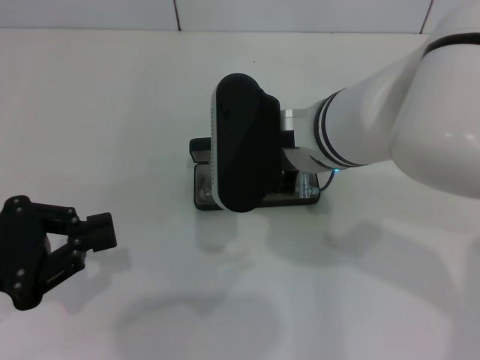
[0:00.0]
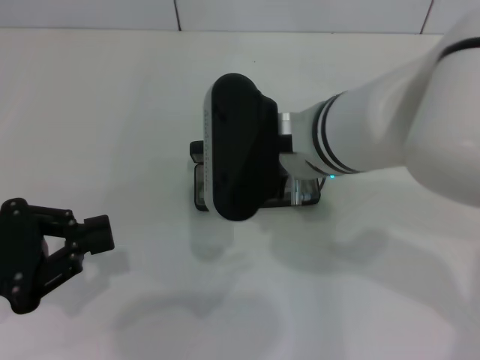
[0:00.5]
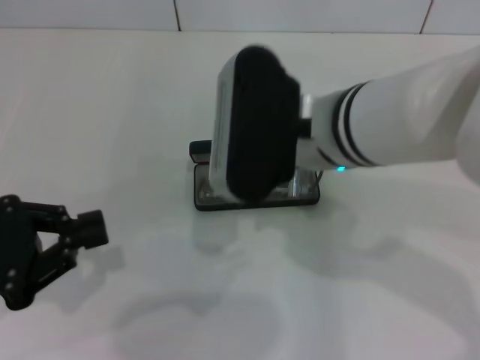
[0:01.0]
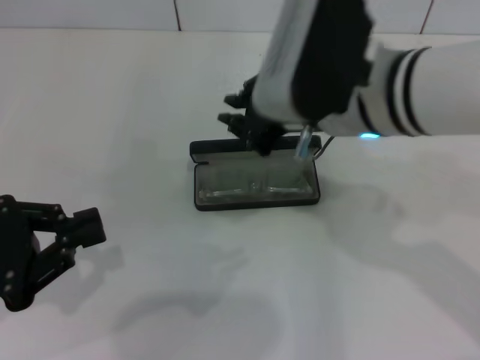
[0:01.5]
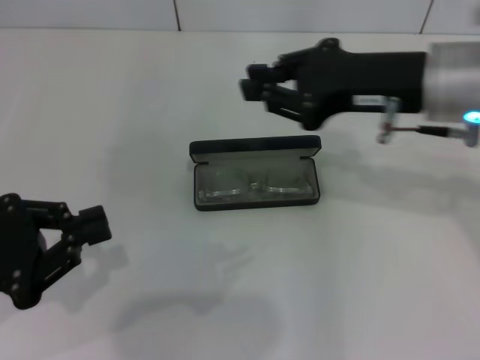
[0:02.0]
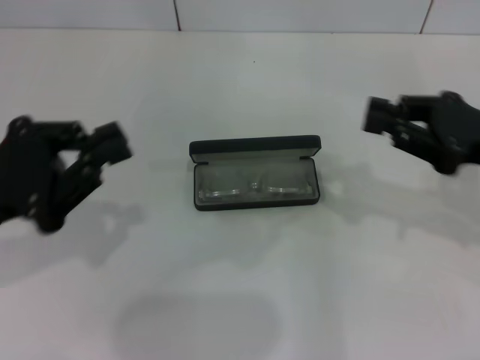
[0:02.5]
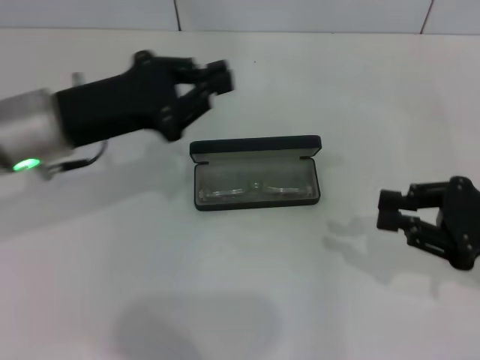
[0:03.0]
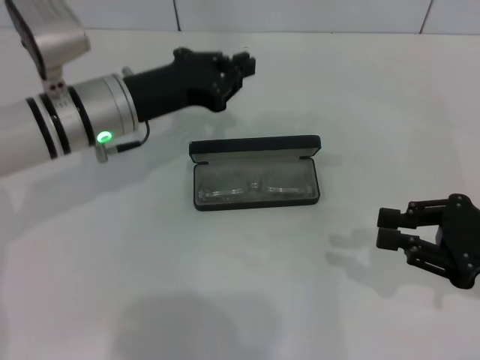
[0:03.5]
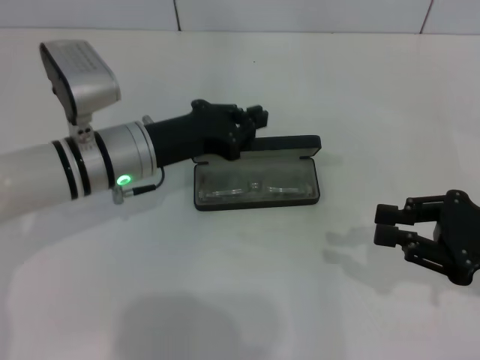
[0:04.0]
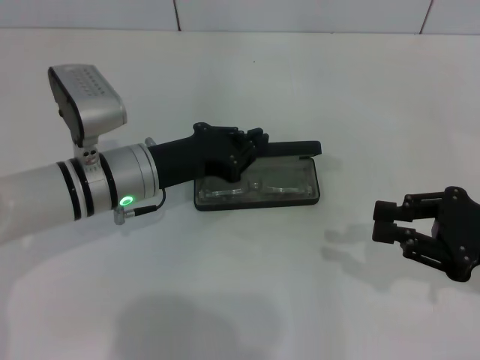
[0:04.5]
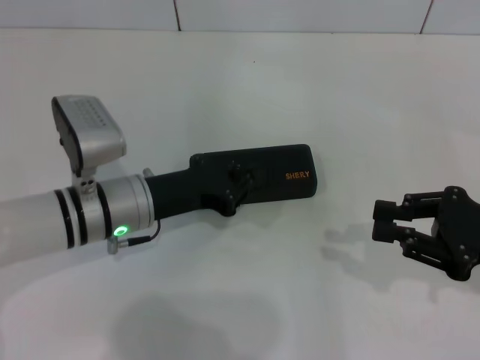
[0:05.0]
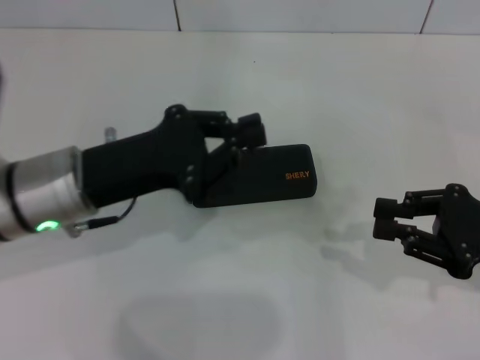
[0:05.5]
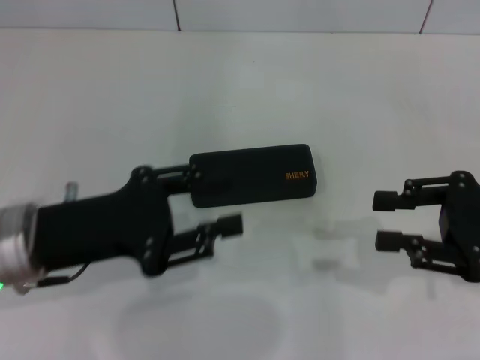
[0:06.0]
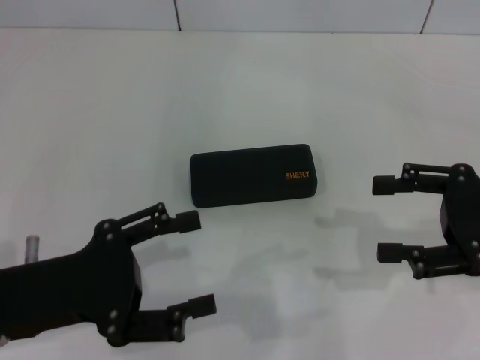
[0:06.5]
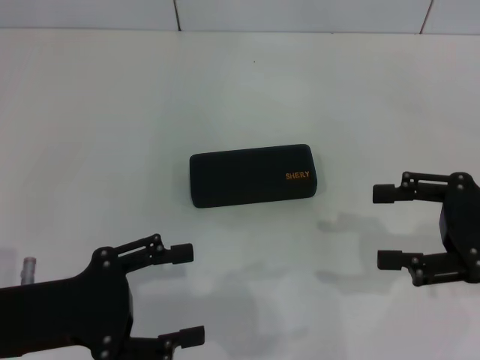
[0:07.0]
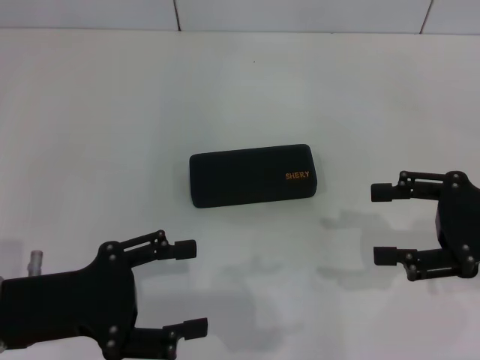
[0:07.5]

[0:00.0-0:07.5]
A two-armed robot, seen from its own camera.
Step, 0:01.0 to 0:05.0: Close the glasses case with your left hand.
0:00.0 to 0:02.0: The right gripper heads to the right, covering about 15 cm.
0:02.0 to 0:04.0: The right gripper travels to the right, downward and backward by roughly 20 cm; the left gripper heads forward and to the right, covering roughly 20 cm.
0:04.0 to 0:05.5: The left gripper is displaced backward by approximately 5 cm.
0:05.5 to 0:07.5: The left gripper goes roughly 10 cm backward and to the left, and opens. The right gripper opens its fingers.

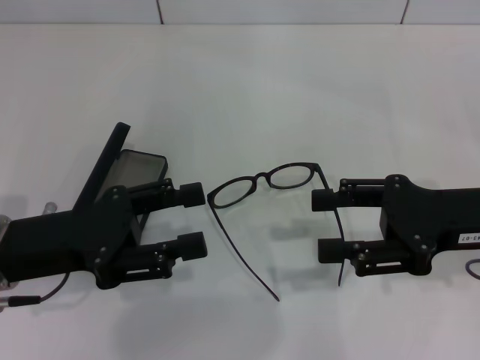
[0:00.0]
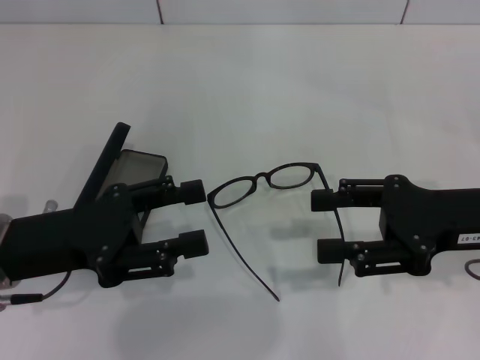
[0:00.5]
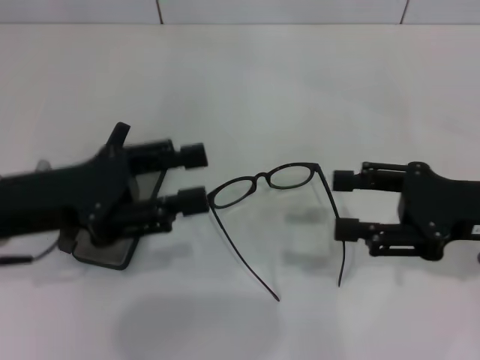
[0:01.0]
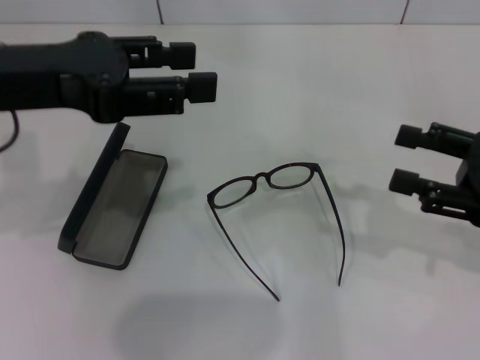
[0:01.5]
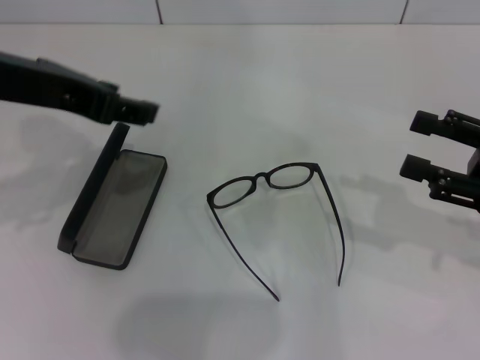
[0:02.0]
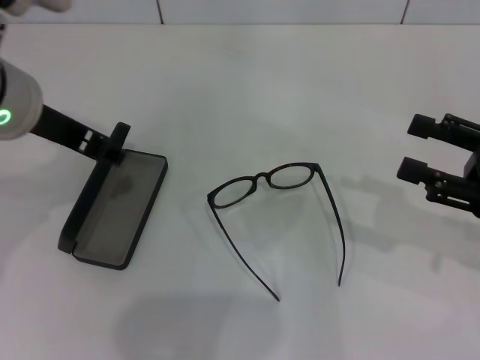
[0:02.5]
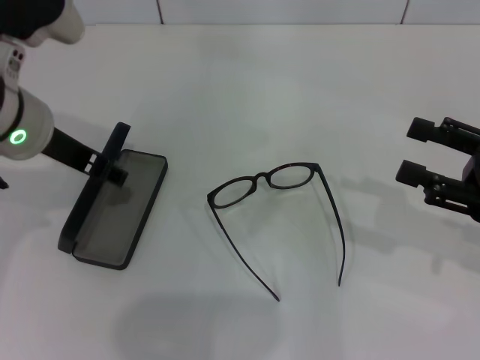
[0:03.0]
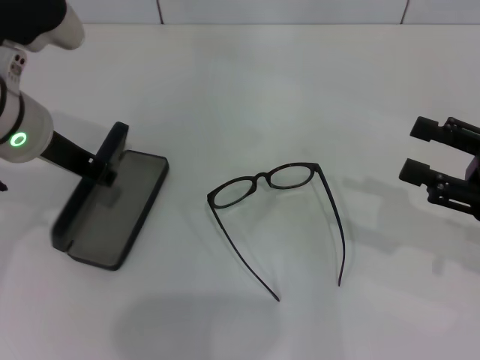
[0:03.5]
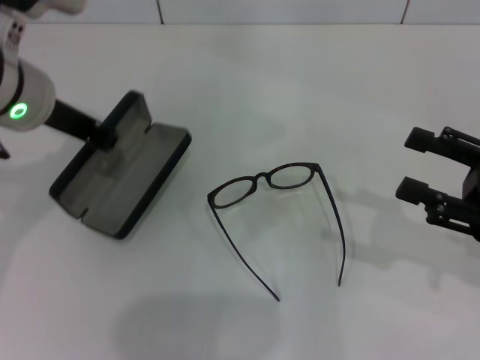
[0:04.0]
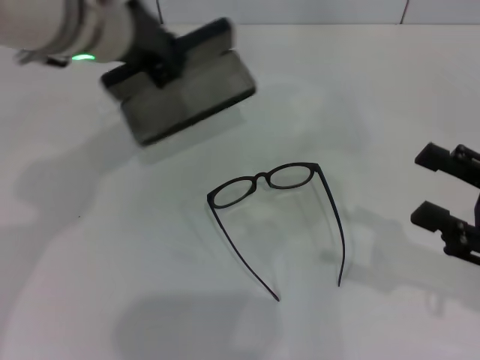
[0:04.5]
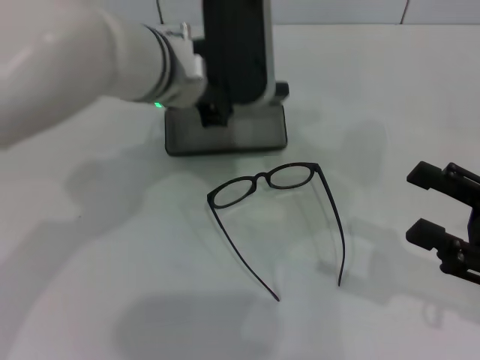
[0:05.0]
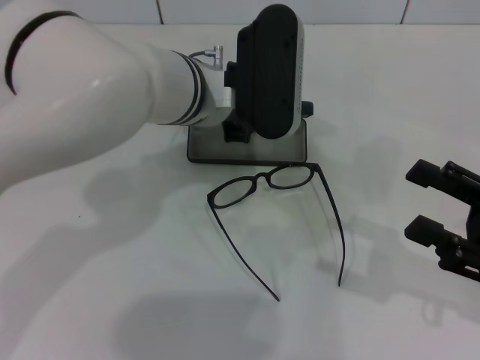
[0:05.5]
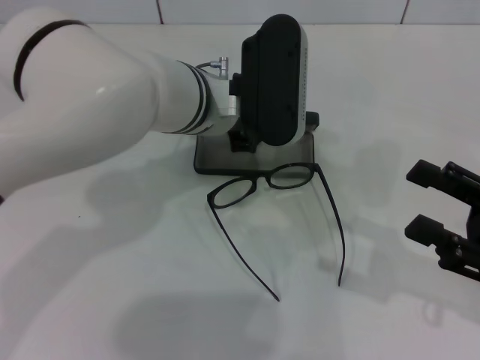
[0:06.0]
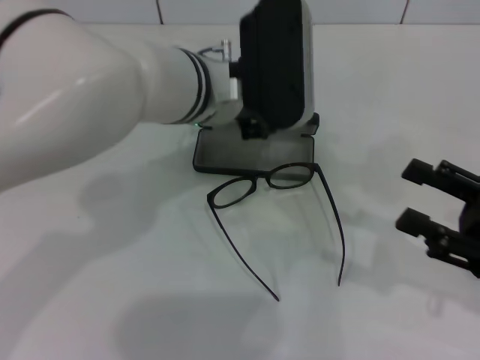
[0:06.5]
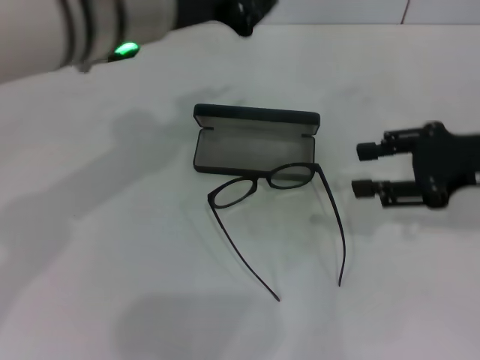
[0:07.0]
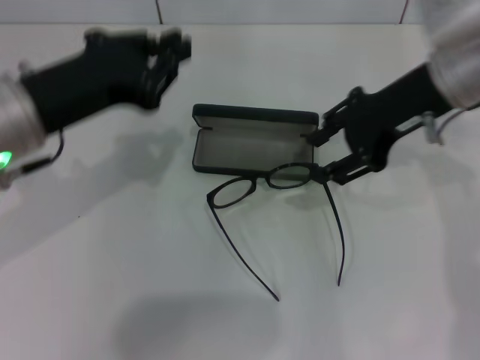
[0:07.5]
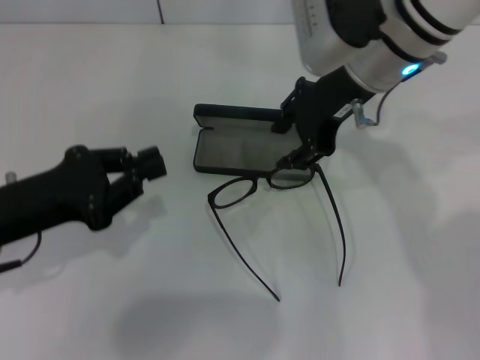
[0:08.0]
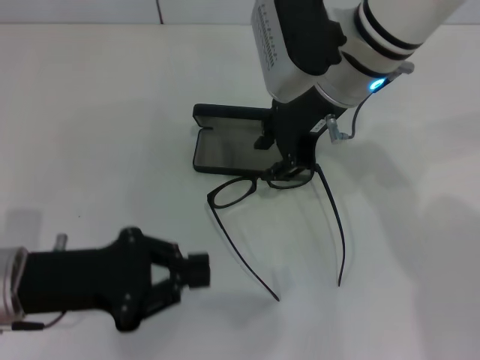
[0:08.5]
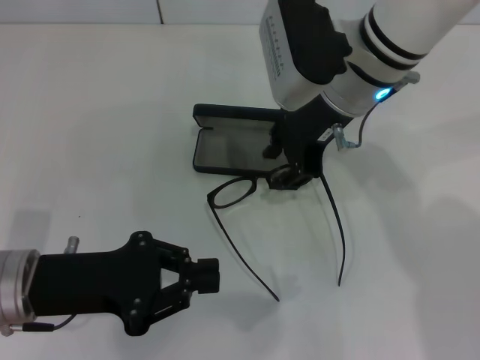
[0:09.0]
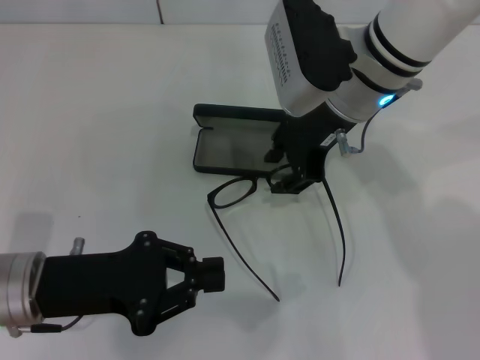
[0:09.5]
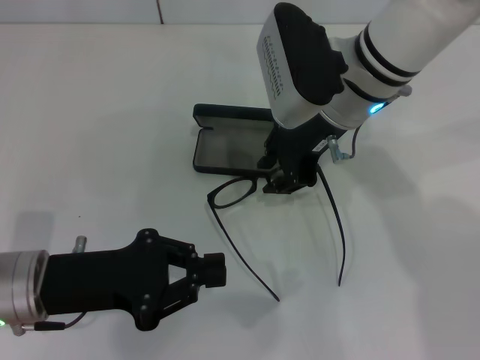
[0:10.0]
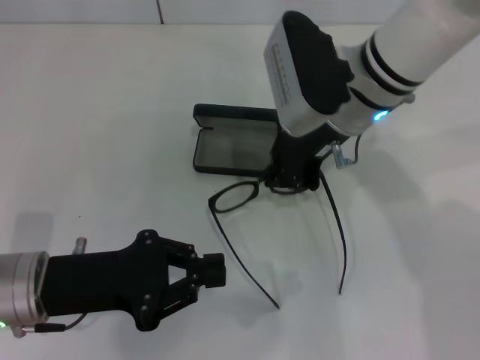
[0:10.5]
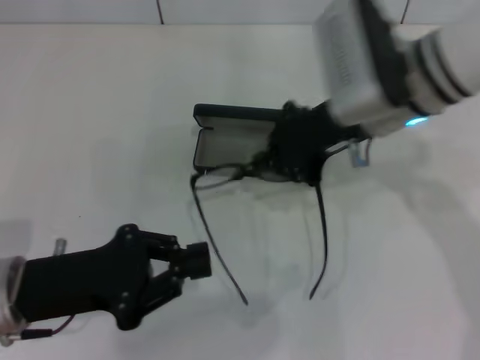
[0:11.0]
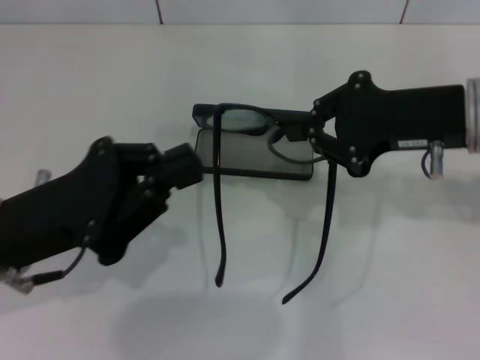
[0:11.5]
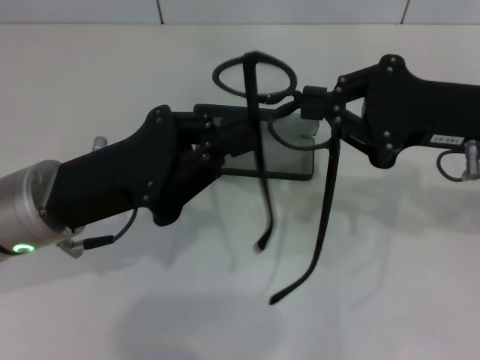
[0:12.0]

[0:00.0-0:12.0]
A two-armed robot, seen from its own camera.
Step, 0:00.0 to 0:03.5: Grab the glasses case with your left hand.
Step, 0:04.0 to 0:06.0: Place the glasses case in the center of the table with your left hand.
Step, 0:06.5 to 0:10.5: Grab the eyeglass frame with your right hand.
0:00.0 to 0:02.0: The left gripper goes roughly 15 cm upward. The right gripper heads to the right, covering roughly 5 cm.
0:02.0 to 0:04.0: The left gripper moves downward, approximately 5 cm, and closes up.
0:04.0 to 0:06.0: The left gripper heads to the right and downward, covering about 15 cm.
0:06.0 to 0:08.0: The left gripper goes some 25 cm to the left and backward. Meanwhile the right gripper heads to the left, forward and upward, covering approximately 30 cm.
0:08.0 to 0:10.0: The left gripper moves some 5 cm.
0:10.0 to 0:12.0: The left gripper ends up some 5 cm from where it was, while the right gripper heads to the right and backward, covering about 15 cm, and closes.

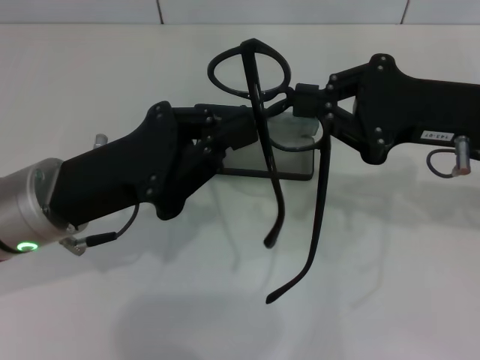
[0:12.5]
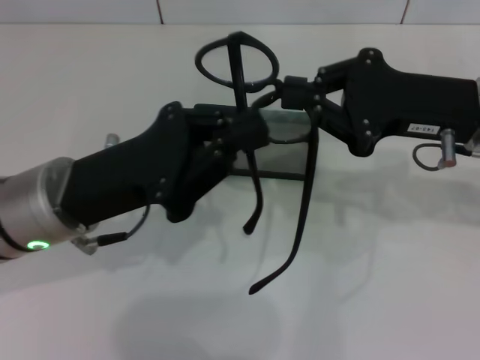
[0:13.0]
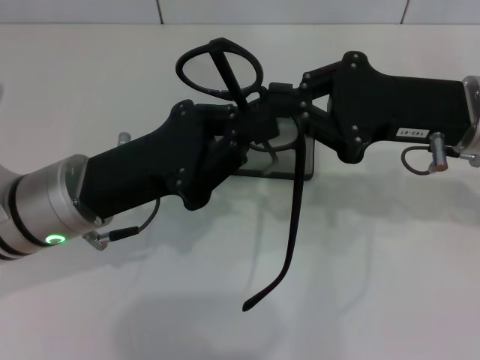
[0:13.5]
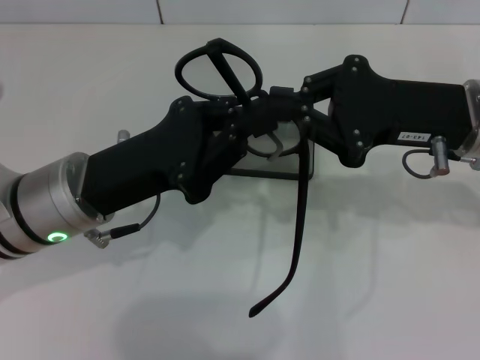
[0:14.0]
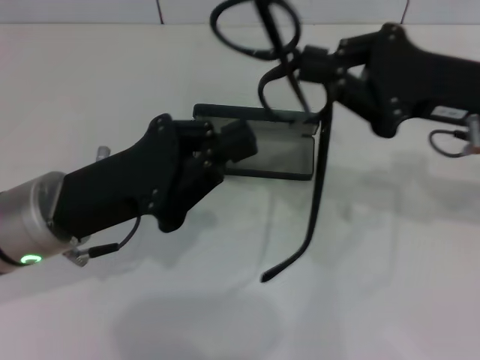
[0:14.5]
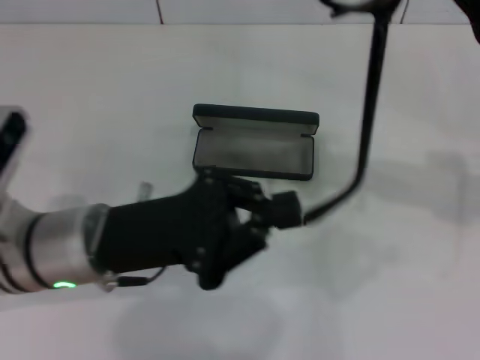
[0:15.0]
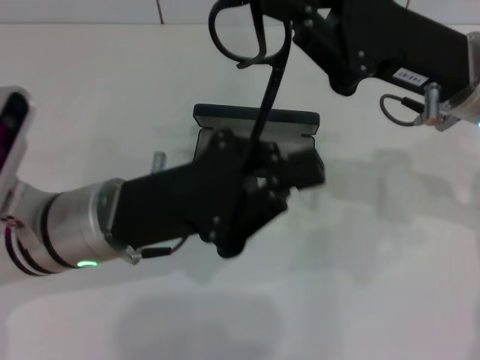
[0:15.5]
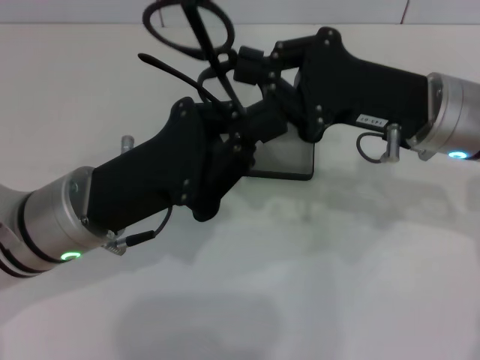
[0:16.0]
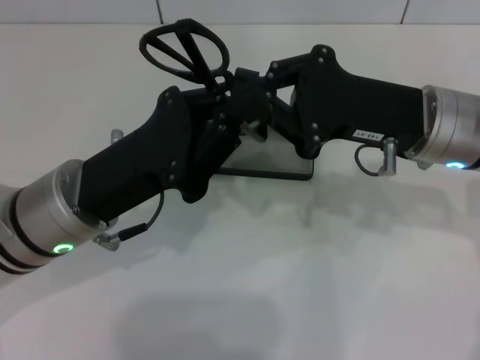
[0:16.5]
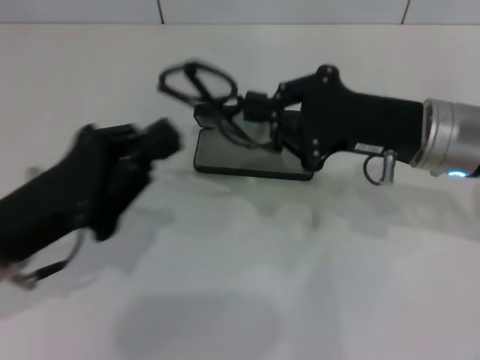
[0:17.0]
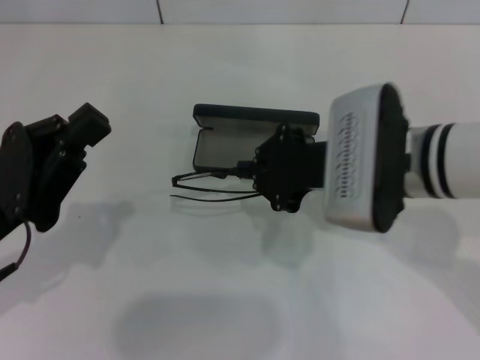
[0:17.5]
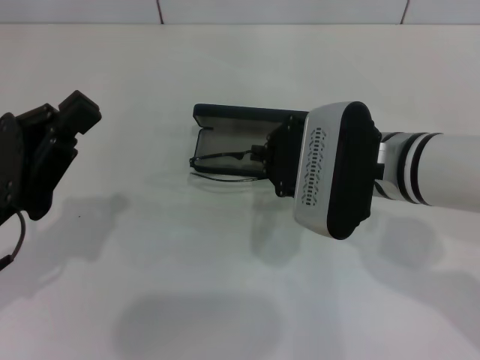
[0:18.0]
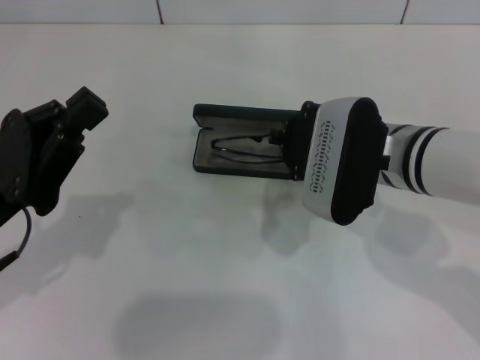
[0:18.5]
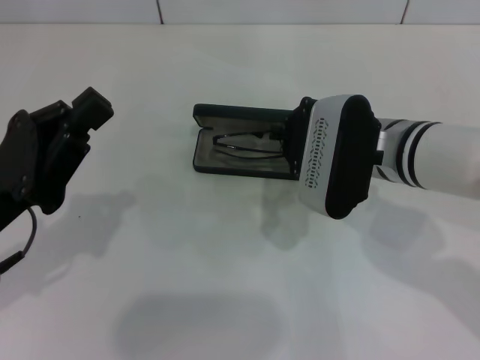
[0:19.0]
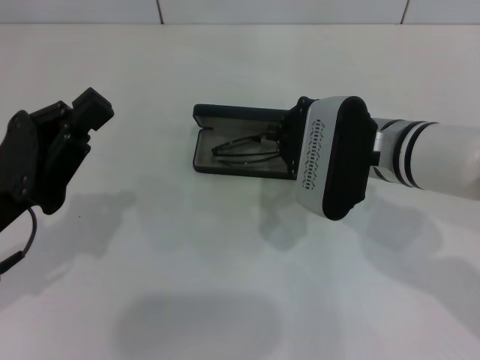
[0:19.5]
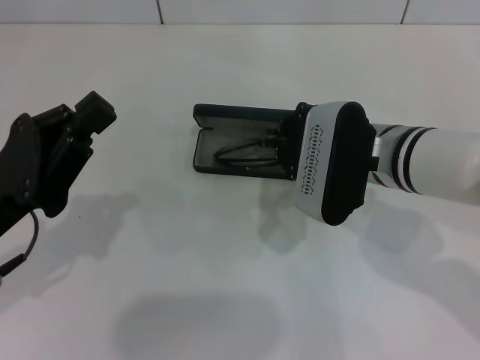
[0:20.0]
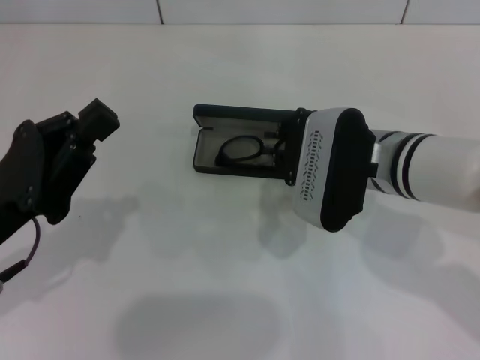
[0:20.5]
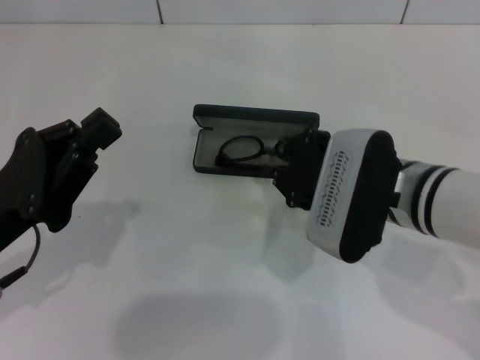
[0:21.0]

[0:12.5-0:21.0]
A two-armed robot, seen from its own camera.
Step, 0:12.5 to 0:16.5: Lift the glasses with your right hand.
0:14.5 to 0:16.5: The right gripper moves to the left, about 5 cm.
0:16.5 to 0:19.0: The left gripper moves to the left, roughly 10 cm, while the right gripper changes place by roughly 5 cm.
0:19.0 to 0:21.0: The grippers make only small movements.
